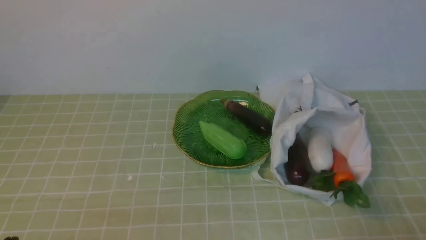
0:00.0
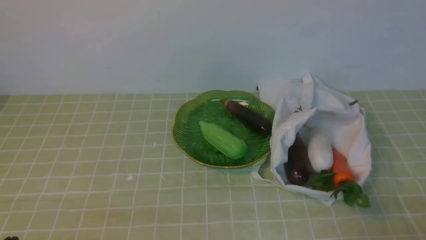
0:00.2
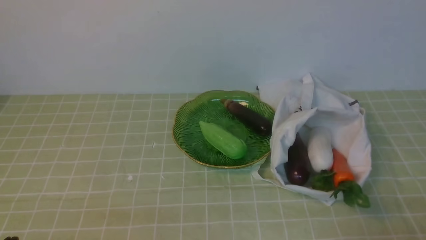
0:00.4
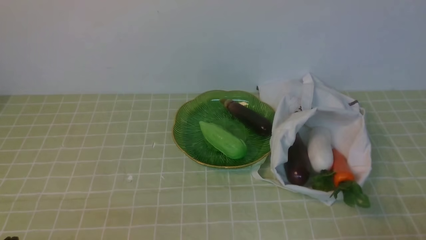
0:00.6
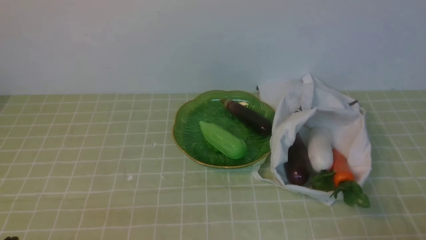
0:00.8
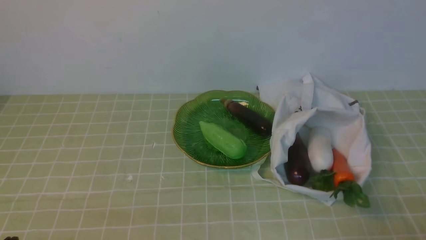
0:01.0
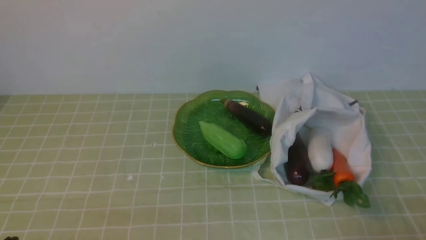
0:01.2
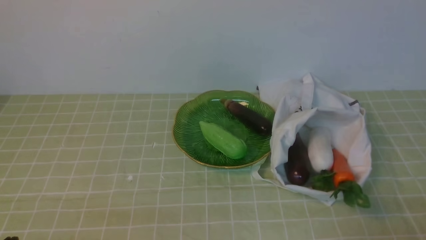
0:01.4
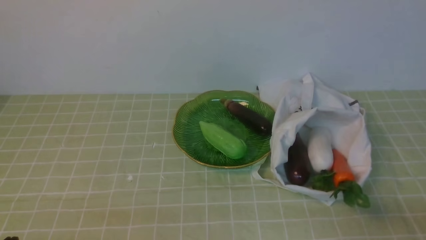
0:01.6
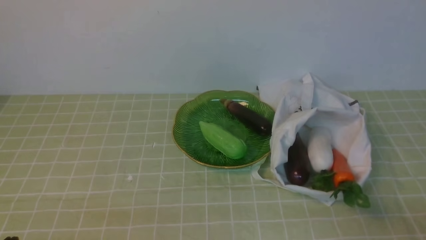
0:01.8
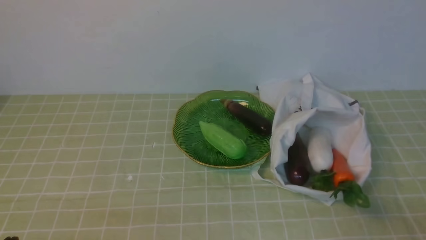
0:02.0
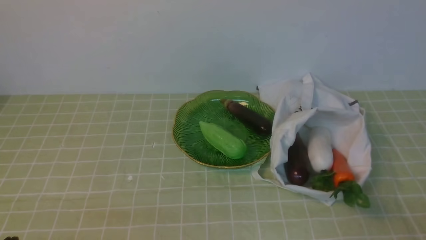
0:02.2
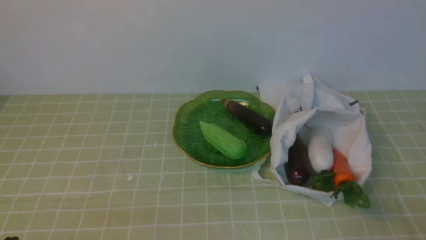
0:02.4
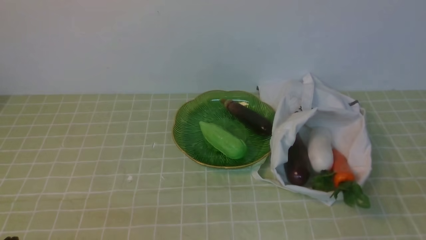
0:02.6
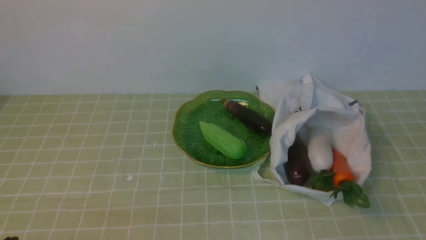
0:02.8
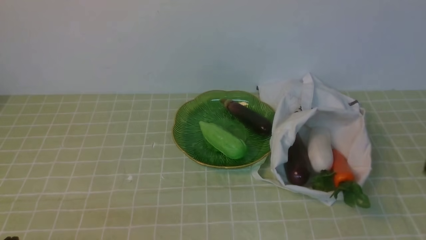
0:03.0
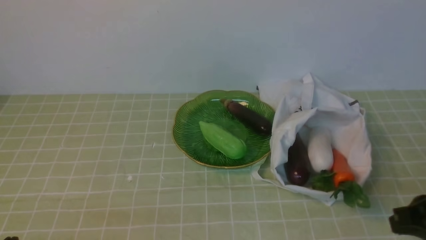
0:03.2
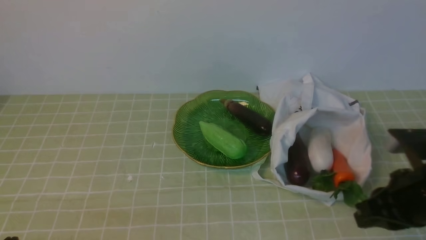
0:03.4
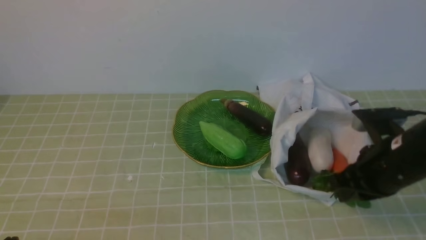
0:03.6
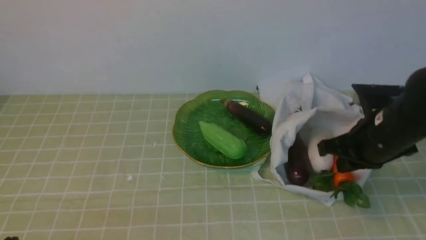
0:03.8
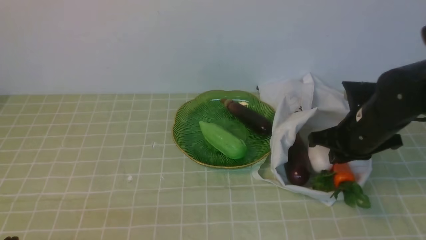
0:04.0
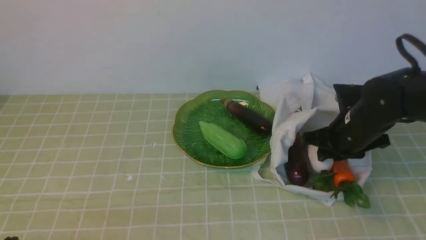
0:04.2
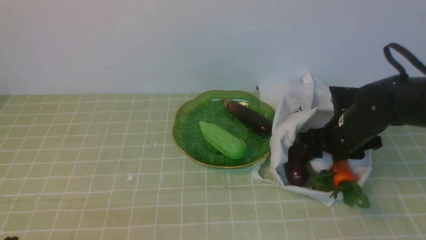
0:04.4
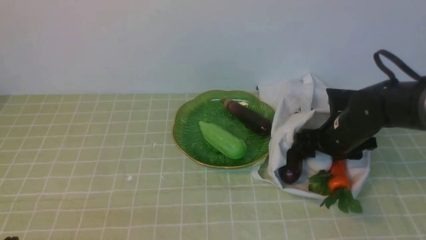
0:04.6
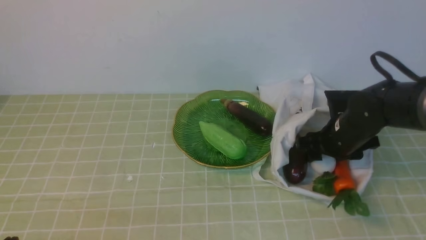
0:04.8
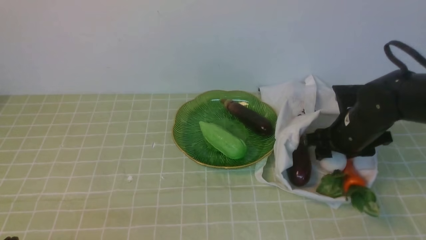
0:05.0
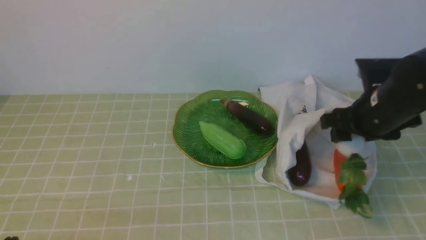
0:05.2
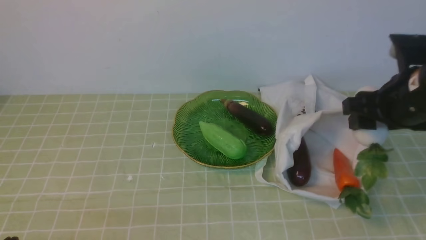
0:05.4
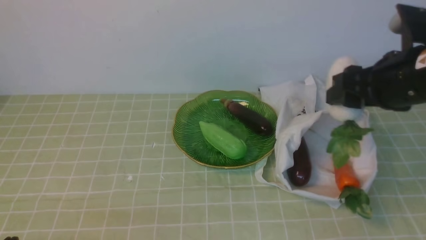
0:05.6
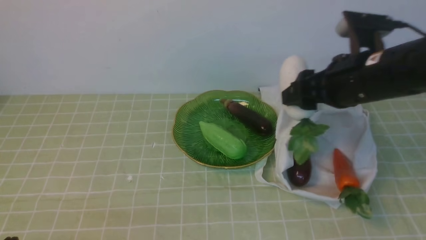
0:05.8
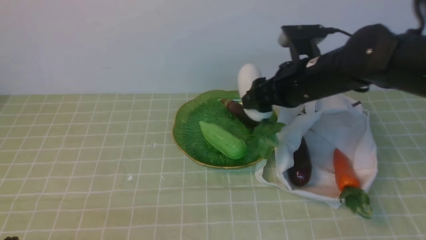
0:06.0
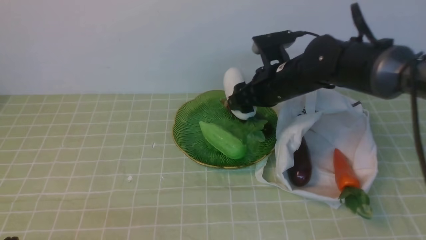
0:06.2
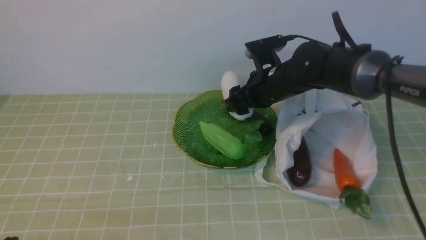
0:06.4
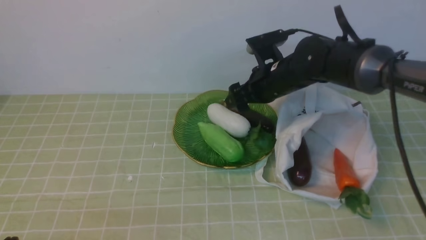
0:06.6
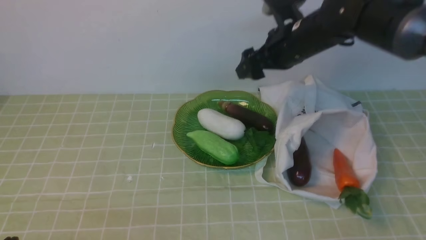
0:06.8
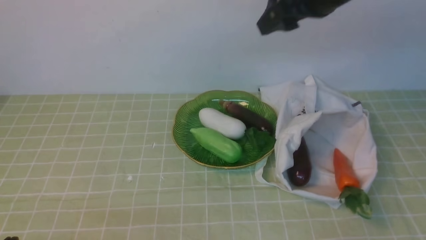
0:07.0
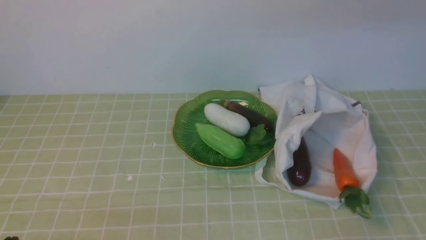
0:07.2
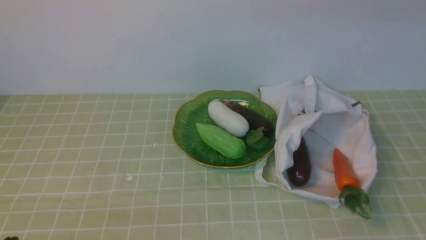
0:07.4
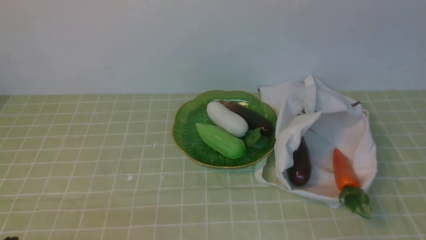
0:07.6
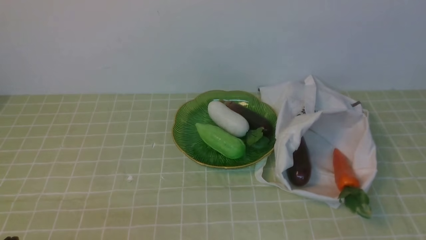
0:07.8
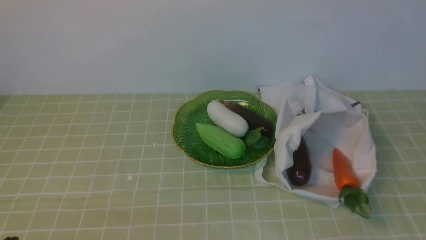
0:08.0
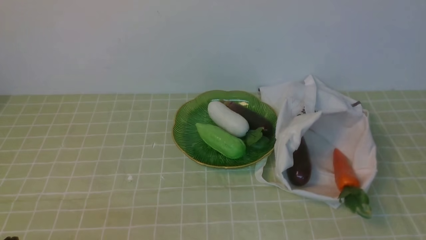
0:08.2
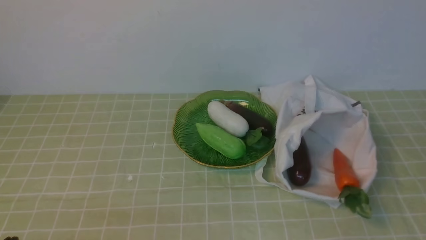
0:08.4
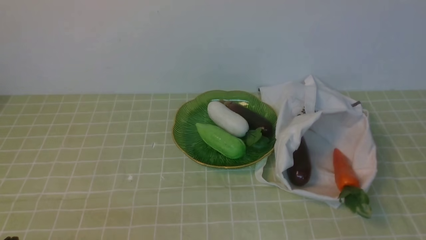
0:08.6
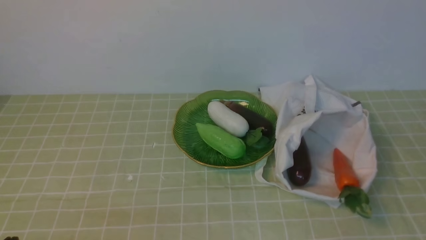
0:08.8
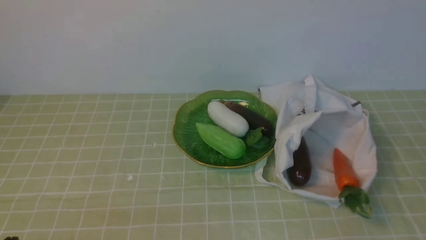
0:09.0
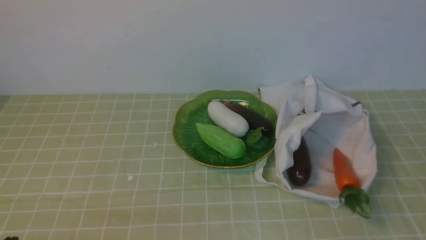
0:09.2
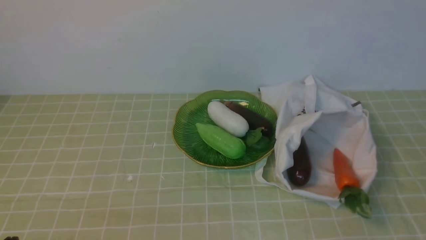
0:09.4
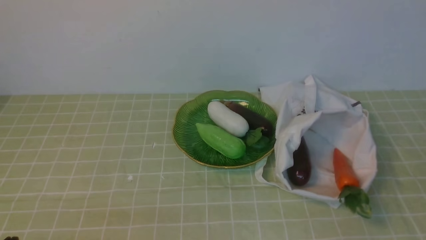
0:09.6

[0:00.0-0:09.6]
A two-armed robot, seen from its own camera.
Task of the whole recording: take vegetables from bag on green coffee tablecloth place on plate.
Step, 0:00.0 to 0:04.8: Grasp the radish with right gripper.
Step, 0:05.0 to 0:06.6: Place the radish on the plate with right gripper.
0:01.6 to 0:03.2: The right gripper heads forward and upward, covering approximately 15 cm.
0:03.2 to 0:04.8: The right gripper moves forward and downward, some 20 cm, and opens its fingers.
0:04.8 to 0:06.4: The right gripper travels to the left and forward by approximately 15 cm, and moves about 15 cm upward and comes back.
0:06.4 to 0:08.0: The right gripper shifts about 40 cm backward, to the right and upward, and closes up.

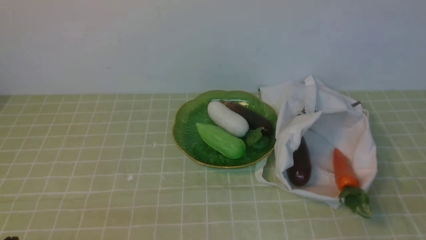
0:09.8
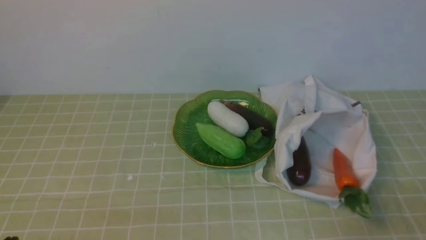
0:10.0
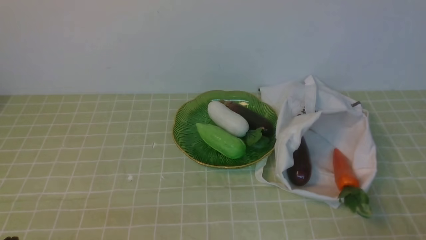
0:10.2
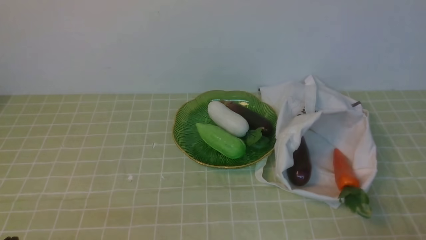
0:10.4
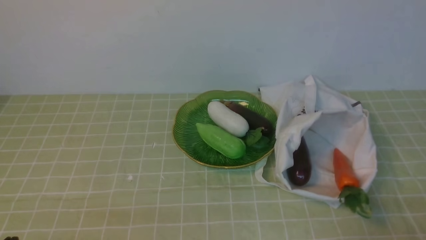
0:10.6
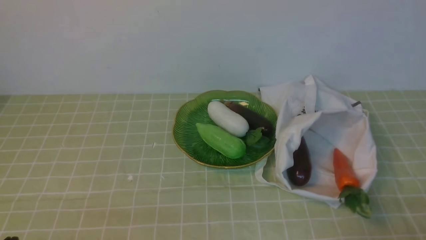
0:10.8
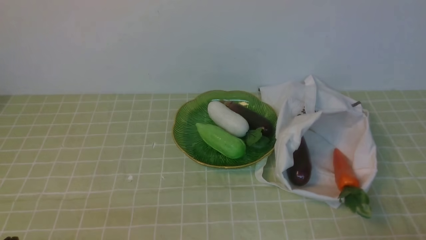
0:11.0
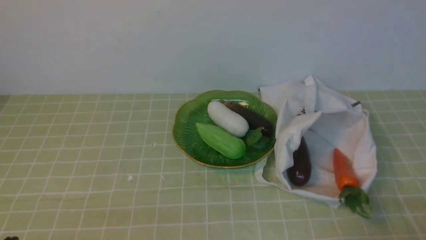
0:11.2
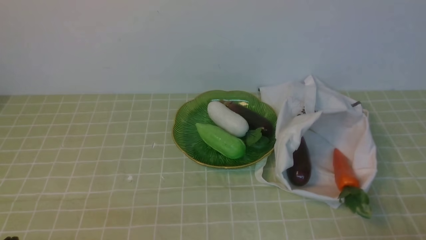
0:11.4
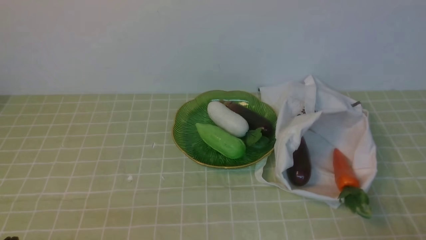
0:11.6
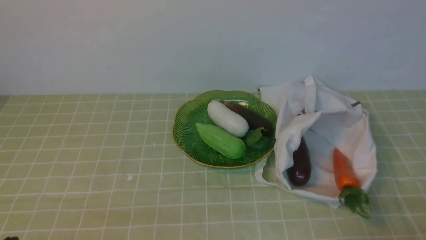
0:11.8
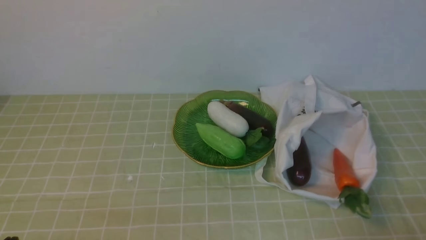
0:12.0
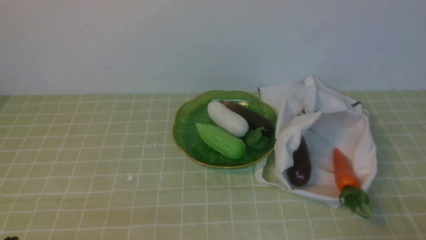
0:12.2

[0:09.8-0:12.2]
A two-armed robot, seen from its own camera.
Task of the whole recording: take vegetables from bag on green coffee tablecloth place on plate.
0:11.0 to 0:12.2: The two grippers keep their place.

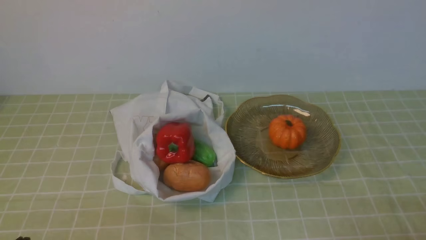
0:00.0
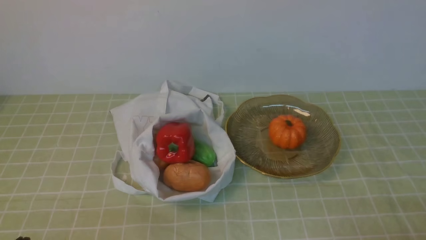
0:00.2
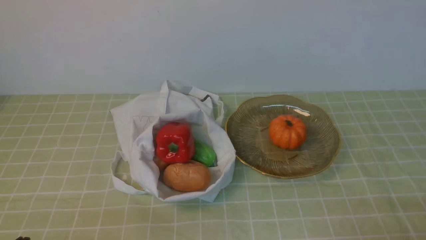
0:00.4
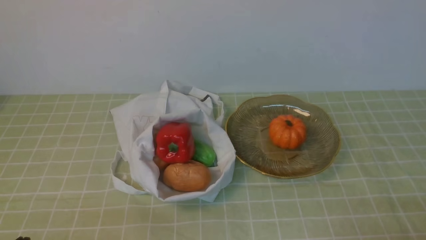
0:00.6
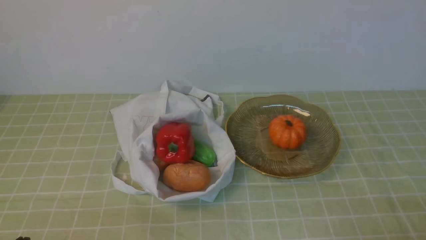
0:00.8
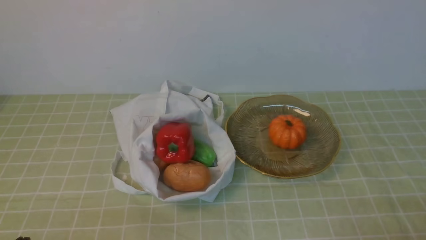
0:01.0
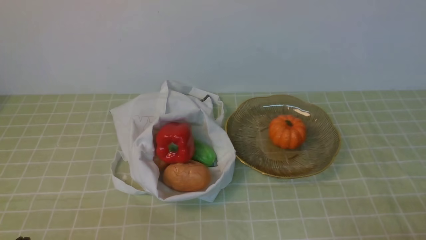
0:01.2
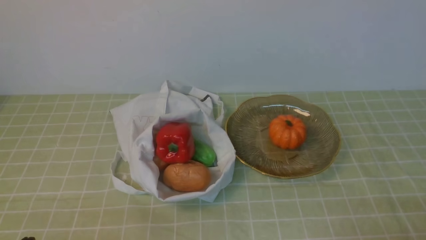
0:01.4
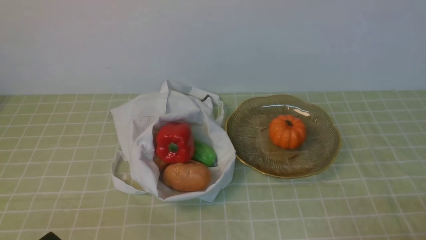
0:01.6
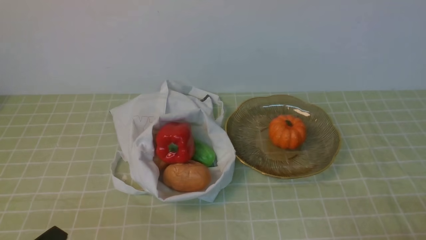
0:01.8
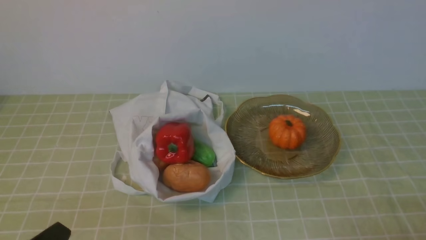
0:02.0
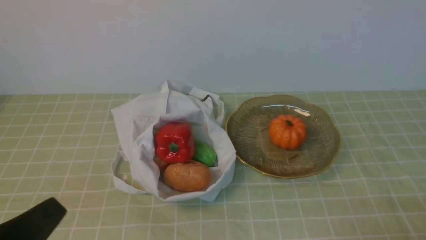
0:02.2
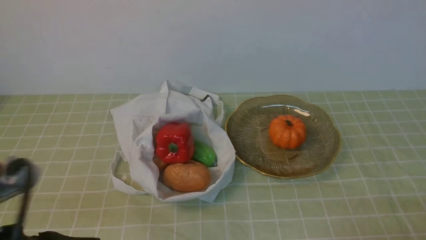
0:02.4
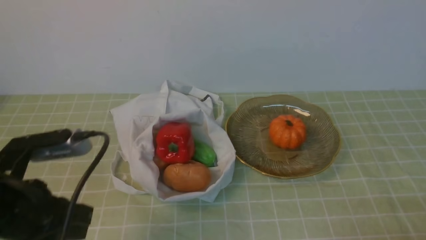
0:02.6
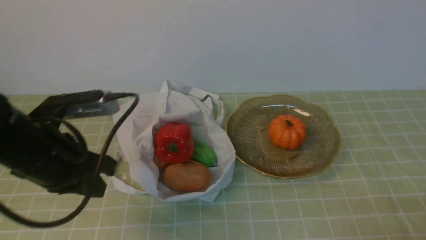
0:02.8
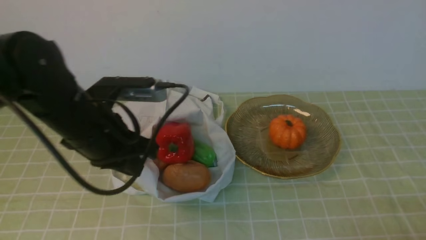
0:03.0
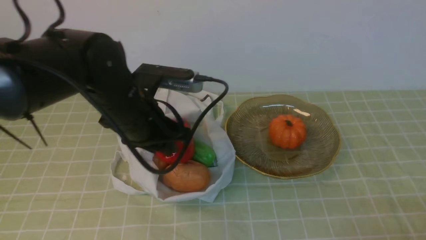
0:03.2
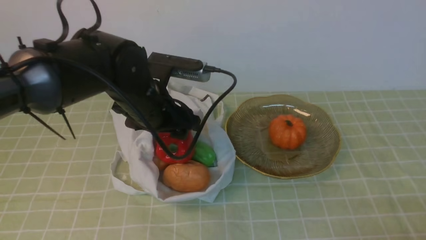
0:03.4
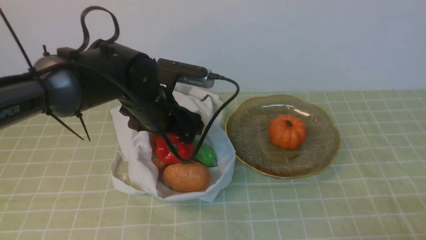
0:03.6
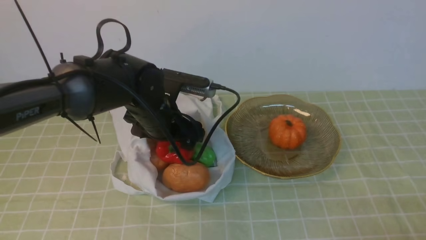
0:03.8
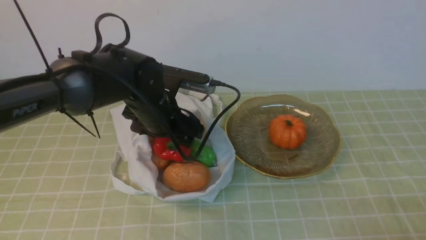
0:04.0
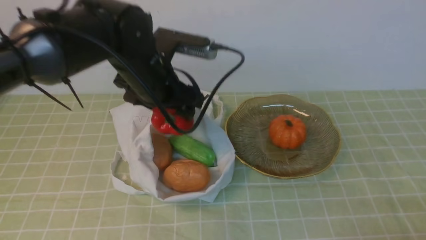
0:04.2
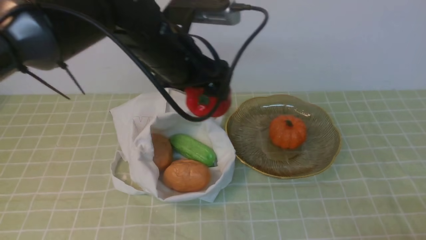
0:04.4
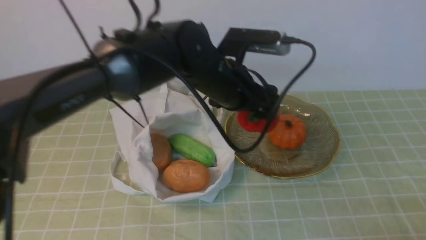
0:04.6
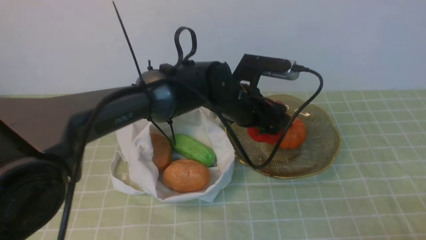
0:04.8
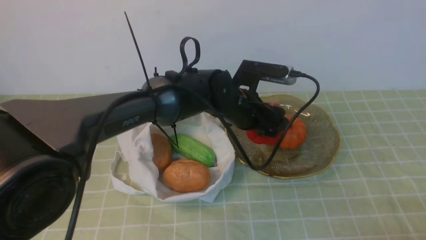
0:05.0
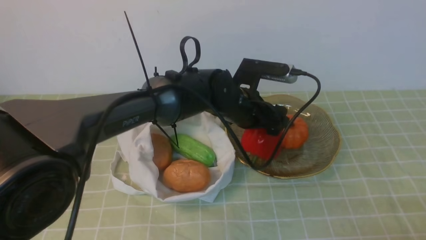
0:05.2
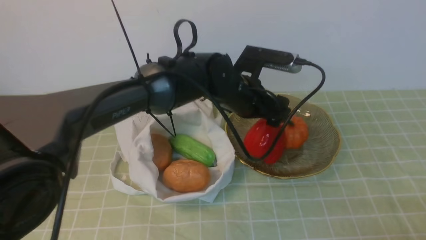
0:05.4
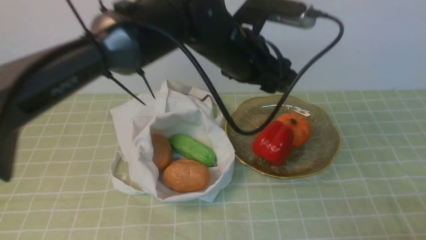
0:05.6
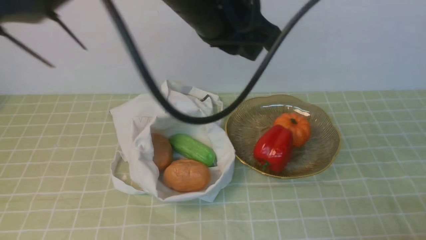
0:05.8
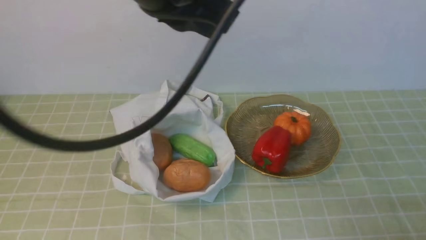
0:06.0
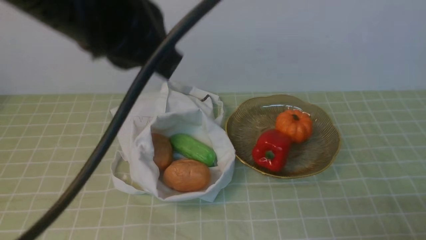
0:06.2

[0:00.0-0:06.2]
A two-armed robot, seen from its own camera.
Task of the whole recording: take vegetables from bag on green coffee tablecloth place on plate.
Step, 0:00.0 to 0:03.8: Grasp the bell pepper with left gripper.
Step, 0:04.0 to 0:05.6: Place the bell pepper on the plate with left gripper.
0:01.6 to 0:03.2: The left gripper travels forward and to the right by roughly 30 cm, and opens its fingers.
0:03.2 to 0:04.6: The left gripper goes some 15 cm to the right and forward, and opens.
0:04.6 to 0:06.2: The left gripper moves backward, upward and to the left, roughly 25 cm, and closes its fingers.
